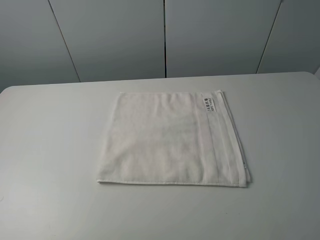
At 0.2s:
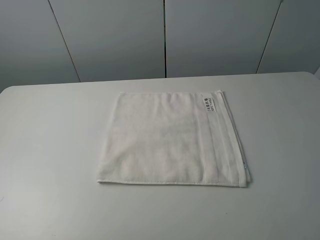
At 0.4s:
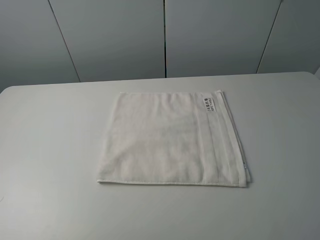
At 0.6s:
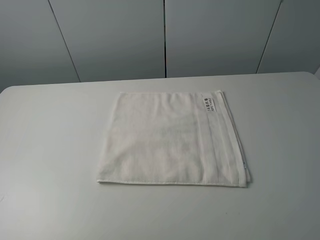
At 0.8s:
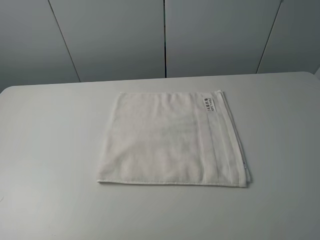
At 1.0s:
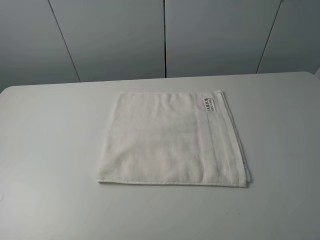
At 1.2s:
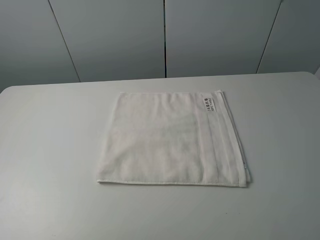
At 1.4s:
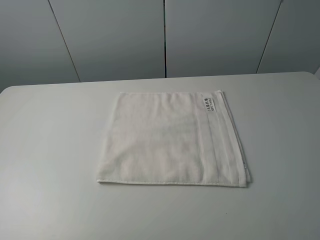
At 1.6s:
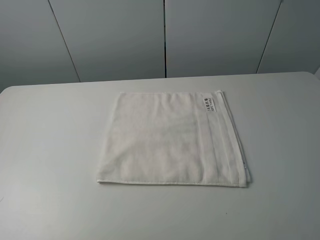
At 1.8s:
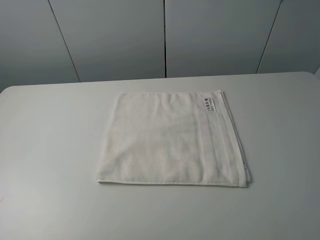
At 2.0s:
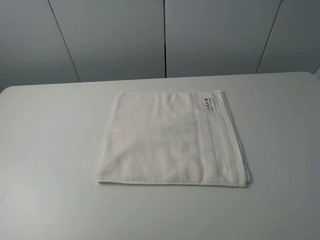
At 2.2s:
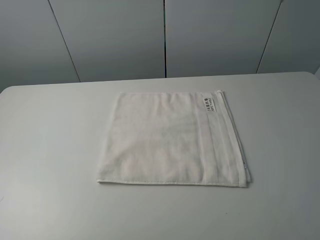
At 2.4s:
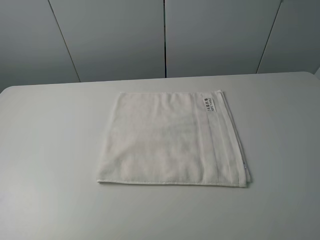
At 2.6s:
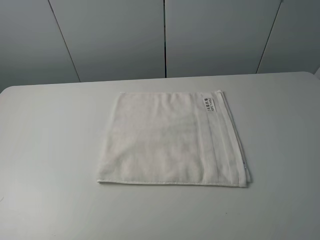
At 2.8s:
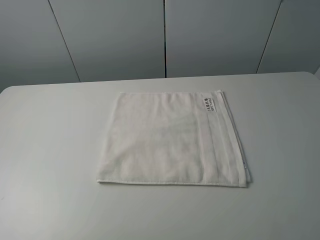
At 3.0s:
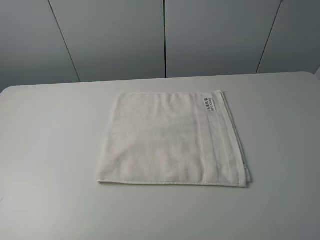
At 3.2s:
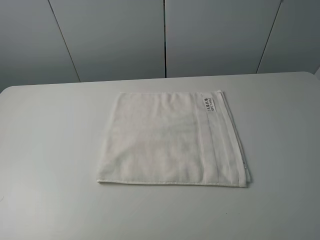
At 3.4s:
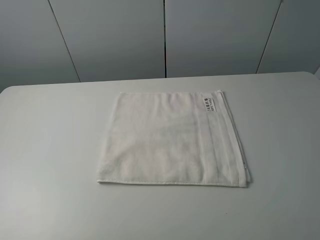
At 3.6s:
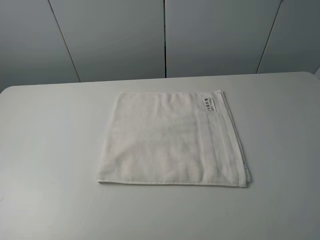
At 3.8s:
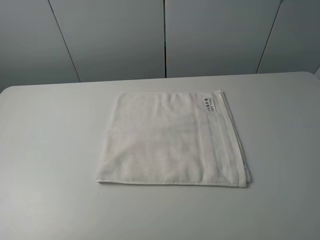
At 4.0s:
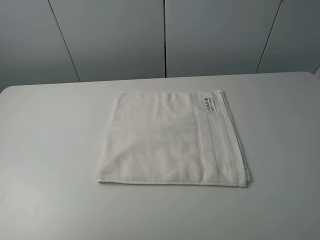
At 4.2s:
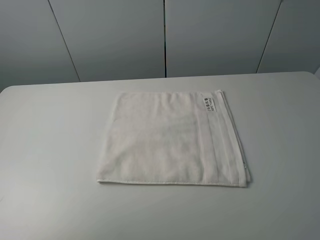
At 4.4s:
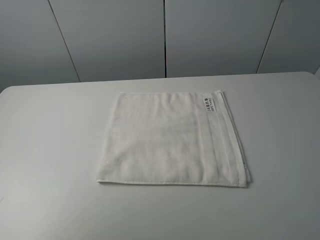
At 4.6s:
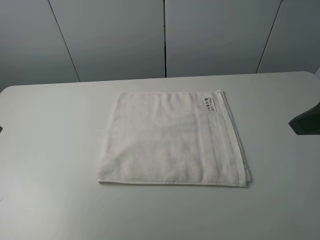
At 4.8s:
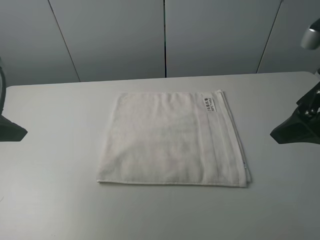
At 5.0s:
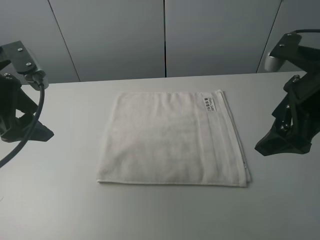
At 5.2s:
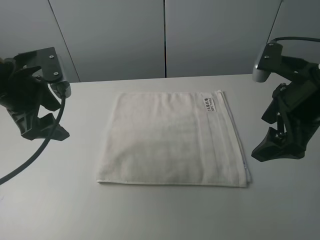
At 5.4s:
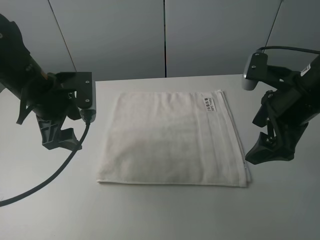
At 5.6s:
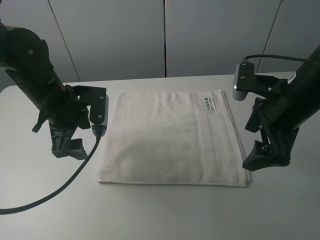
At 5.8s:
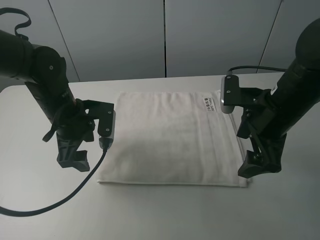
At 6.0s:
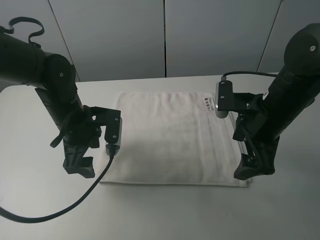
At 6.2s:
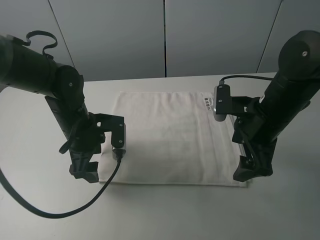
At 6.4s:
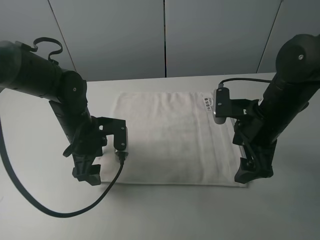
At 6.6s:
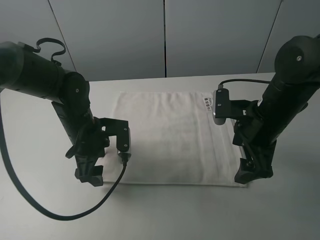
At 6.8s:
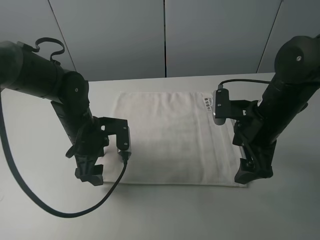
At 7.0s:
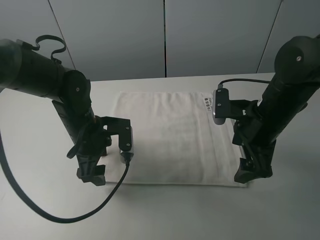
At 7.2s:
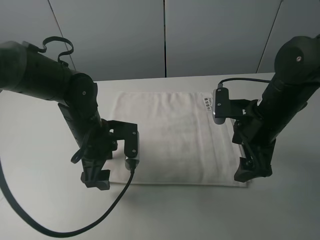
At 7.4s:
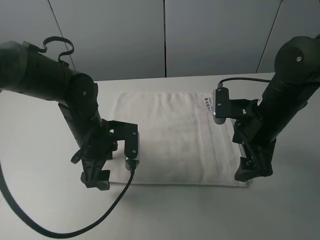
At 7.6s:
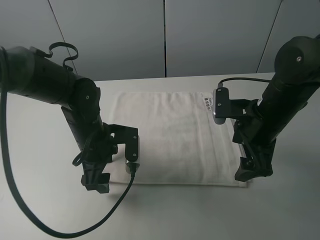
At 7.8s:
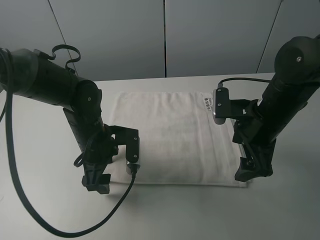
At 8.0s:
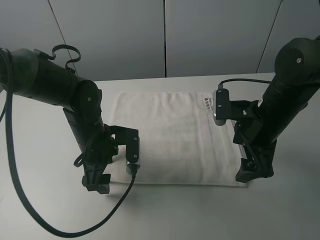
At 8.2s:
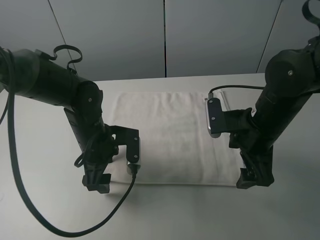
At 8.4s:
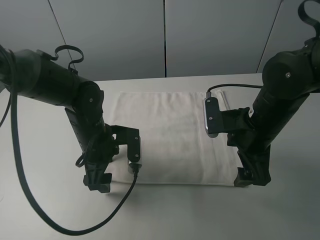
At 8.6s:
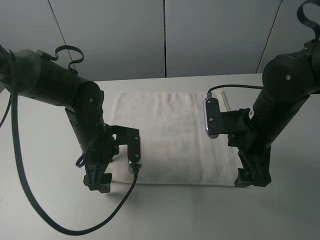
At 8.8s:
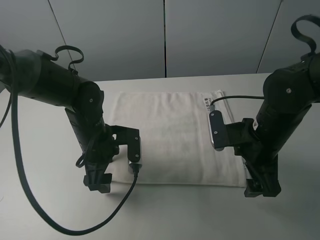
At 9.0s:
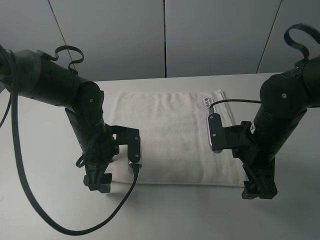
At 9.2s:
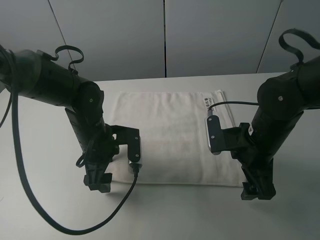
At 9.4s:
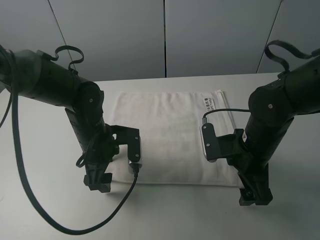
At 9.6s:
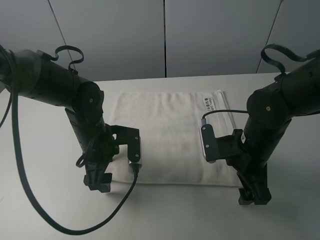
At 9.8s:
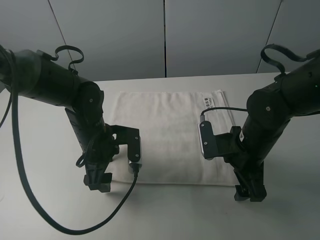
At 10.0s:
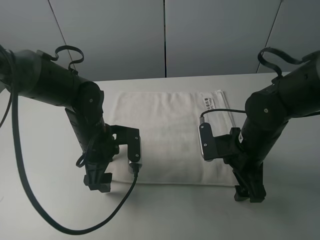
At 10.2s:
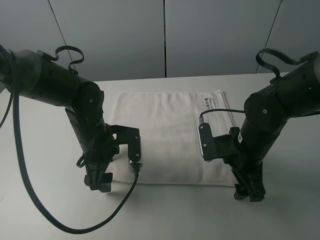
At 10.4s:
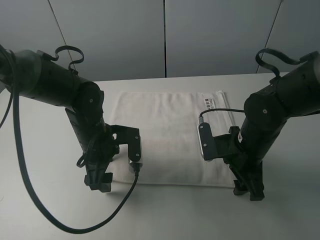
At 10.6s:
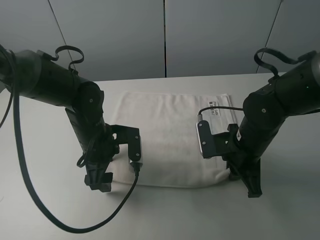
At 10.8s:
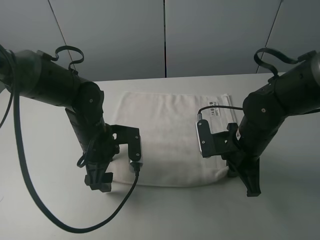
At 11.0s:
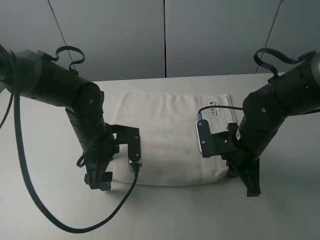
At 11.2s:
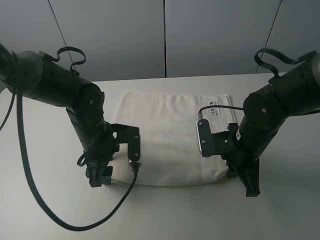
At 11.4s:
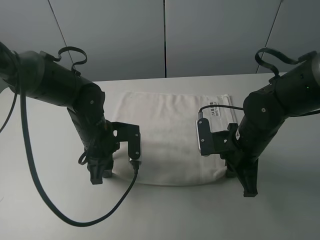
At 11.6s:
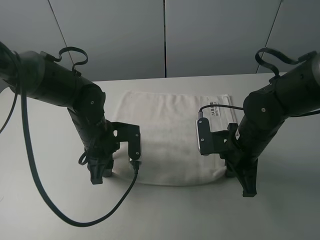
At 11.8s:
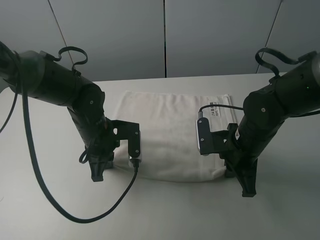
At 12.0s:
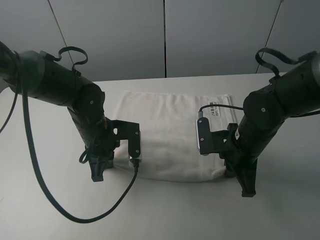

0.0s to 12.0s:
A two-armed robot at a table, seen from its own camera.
Task of the whole recording: fold the towels on the table.
Step, 0.0s to 10.6s: Grasp the white towel with the right gripper.
Step, 10.8s to 11.8s: Grasp the white towel with the left gripper.
0.0s to 1.6s: Both grippers stay put.
4.4s to 6.0s: The left gripper shifts approximately 30 cm to the right, downward and forward. The right gripper moves downward, forward and to the left, some 20 cm.
6.0s to 9.0s: The grippers make only small movements.
9.0s to 10.4s: The grippers make only small movements.
10.4s to 12.0s: The left gripper closes up, while the right gripper closes up.

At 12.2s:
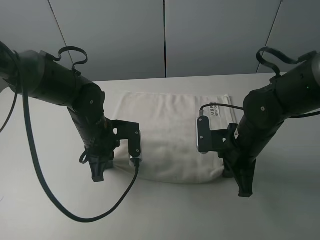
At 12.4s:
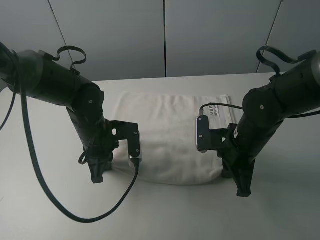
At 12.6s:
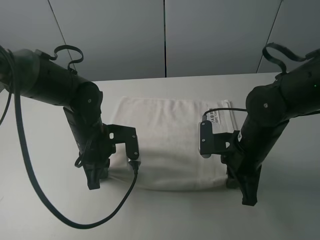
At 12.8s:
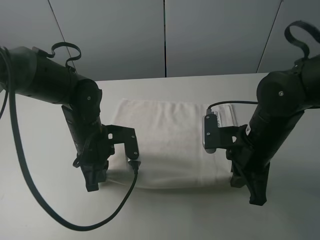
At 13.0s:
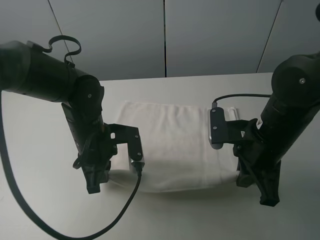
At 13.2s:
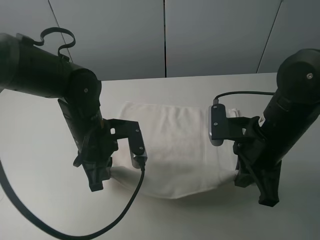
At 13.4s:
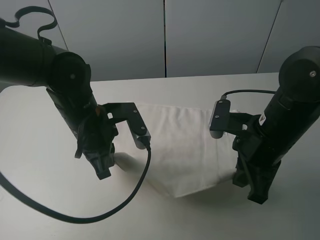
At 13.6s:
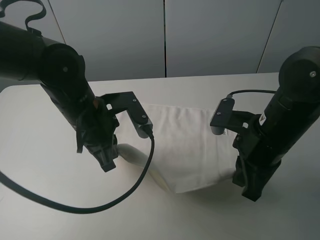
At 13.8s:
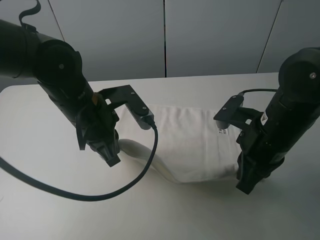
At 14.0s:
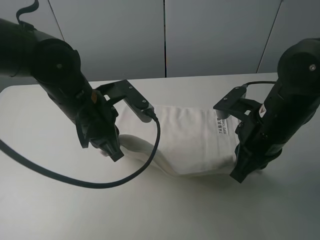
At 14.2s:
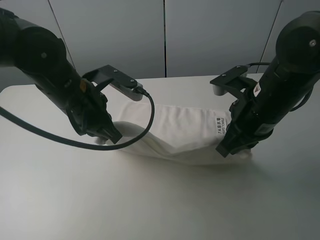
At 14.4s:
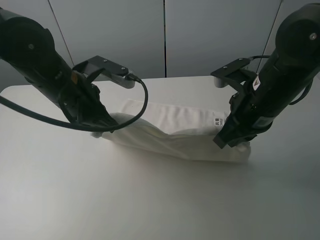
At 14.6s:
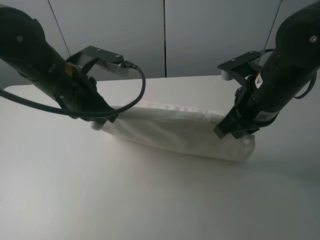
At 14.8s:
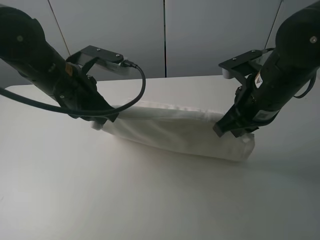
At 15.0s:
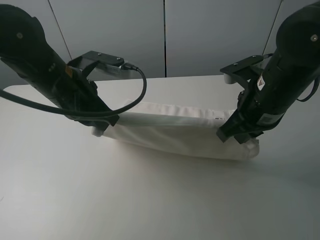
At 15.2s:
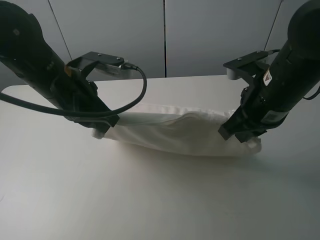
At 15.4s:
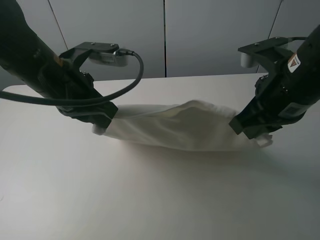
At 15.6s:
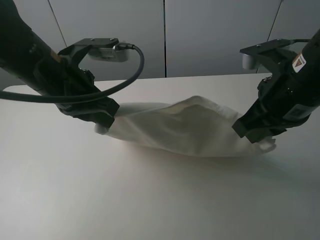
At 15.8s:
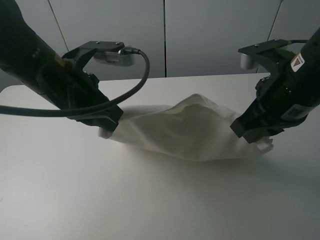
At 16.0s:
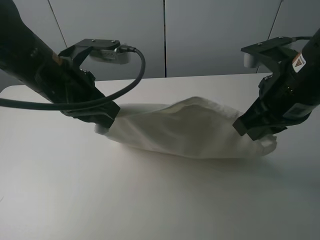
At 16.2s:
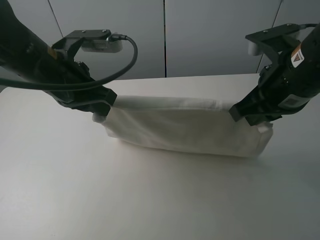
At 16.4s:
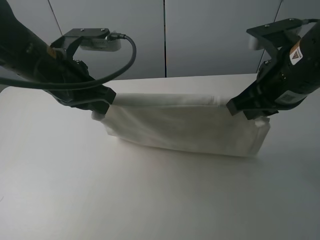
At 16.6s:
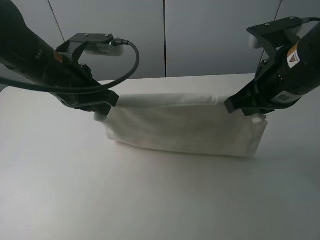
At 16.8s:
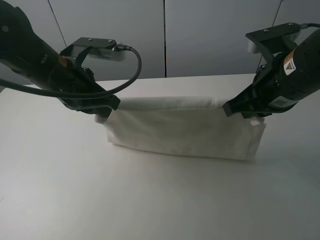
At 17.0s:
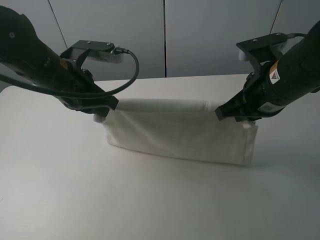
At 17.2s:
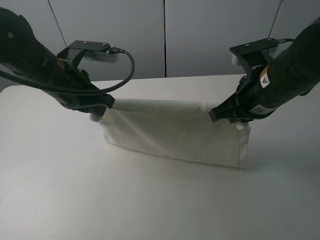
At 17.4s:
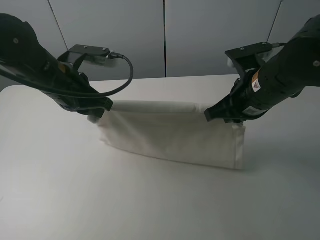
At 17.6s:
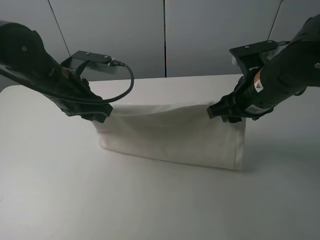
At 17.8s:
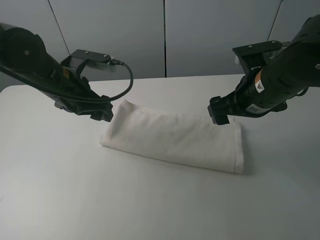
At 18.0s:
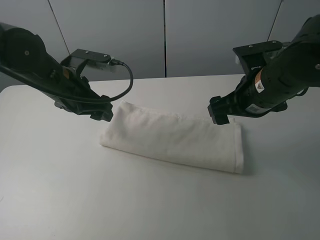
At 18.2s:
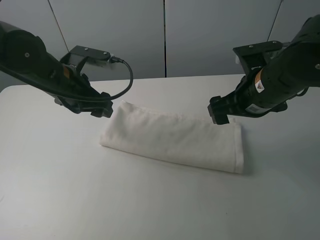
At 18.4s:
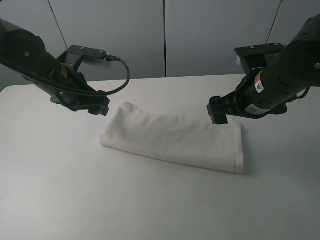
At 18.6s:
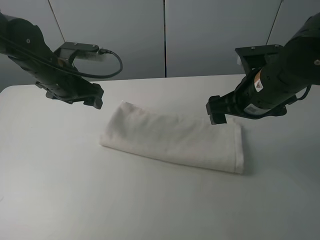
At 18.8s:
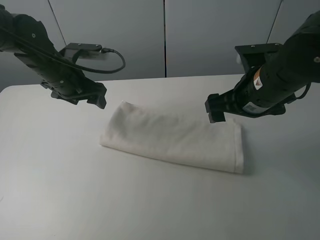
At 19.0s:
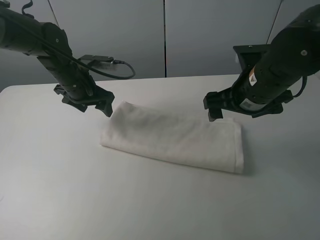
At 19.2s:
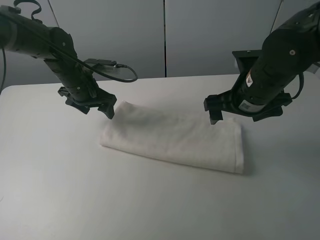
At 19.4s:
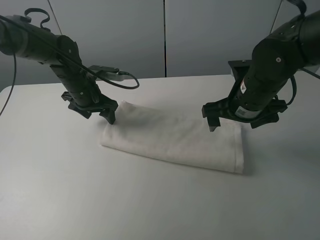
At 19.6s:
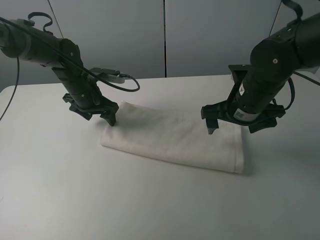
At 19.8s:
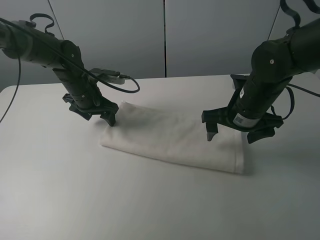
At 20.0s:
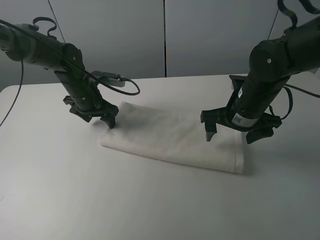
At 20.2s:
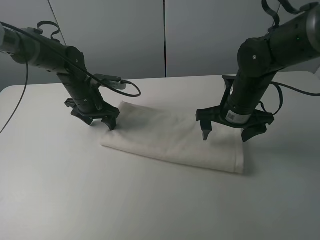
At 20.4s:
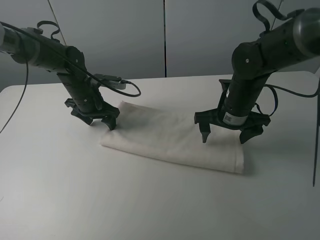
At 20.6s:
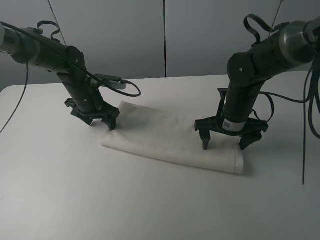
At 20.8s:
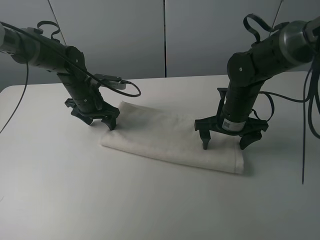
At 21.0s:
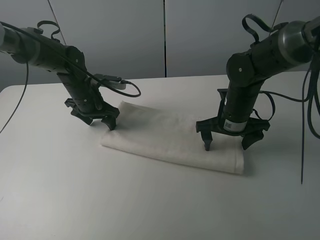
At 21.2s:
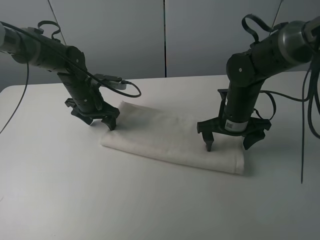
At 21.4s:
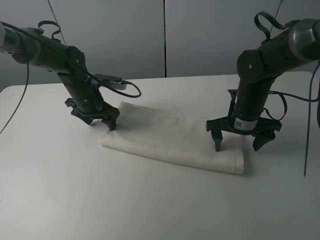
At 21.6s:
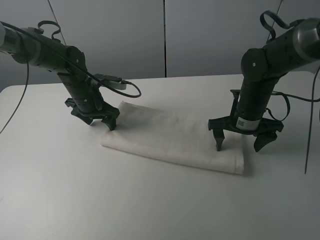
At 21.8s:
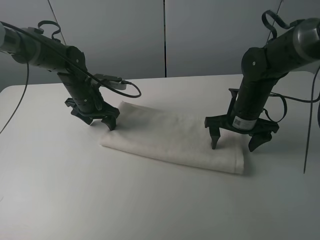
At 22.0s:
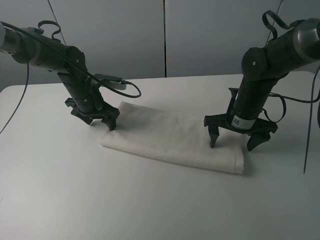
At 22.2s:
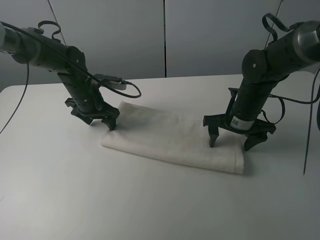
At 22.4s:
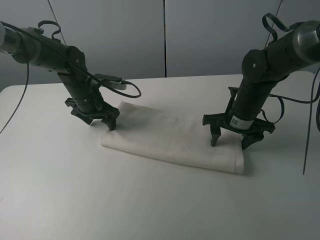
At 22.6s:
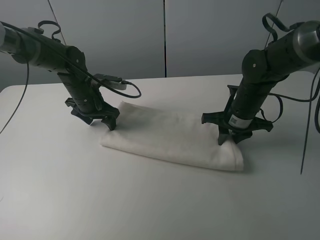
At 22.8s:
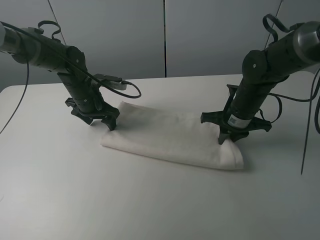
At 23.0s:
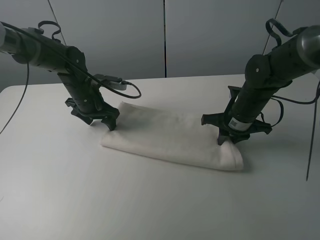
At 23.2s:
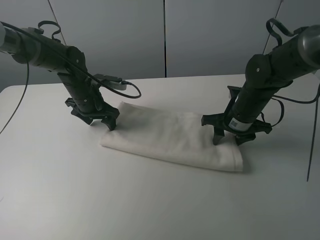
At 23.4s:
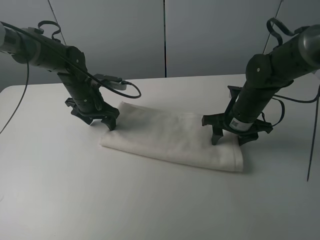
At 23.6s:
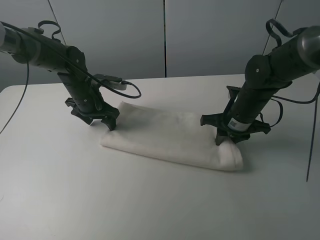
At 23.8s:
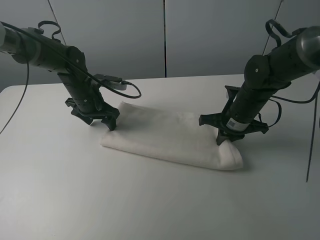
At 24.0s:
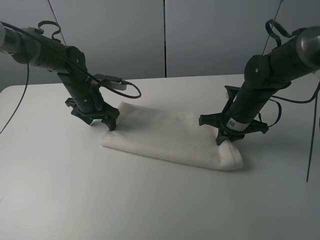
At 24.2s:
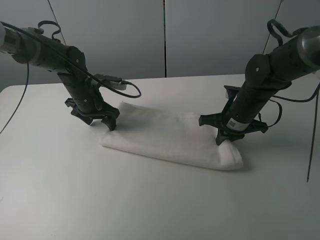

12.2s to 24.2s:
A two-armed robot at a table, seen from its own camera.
Task of the whole recording: fold the towels on the table.
Step, 12.2s to 17.8s: Fold the white towel upwards with the right gripper.
Step, 18.2s to 20.0s: Press on the white towel with the left gripper.
12.2s to 13.8s: Both grippers move upward, some 10 cm.
13.8s to 15.2s: The right gripper is displaced upward by approximately 5 cm. The left gripper changes place by roughly 5 cm.
15.2s to 16.6s: The grippers stay close to where they were, moving slightly.
16.6s to 18.2s: The right gripper travels downward by about 5 cm, and opens its fingers. Meanwhile the left gripper moves roughly 5 cm, and opens up.
18.2s to 19.8s: The left gripper goes about 10 cm forward and downward, while the right gripper moves downward, some 5 cm.
19.8s to 21.2s: The right gripper ends up approximately 5 cm from where it was.
21.2s to 22.6s: The right gripper closes.
22.6s to 24.2s: The right gripper opens, then closes again.
